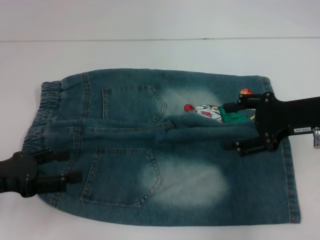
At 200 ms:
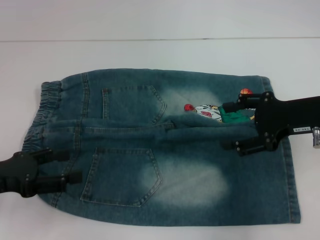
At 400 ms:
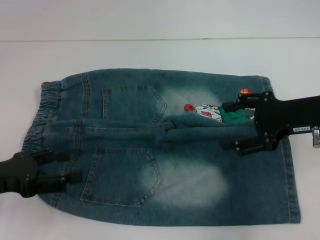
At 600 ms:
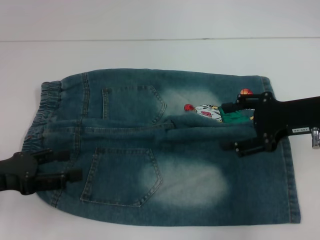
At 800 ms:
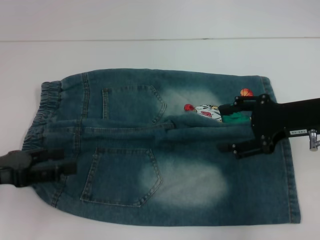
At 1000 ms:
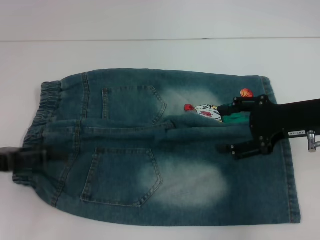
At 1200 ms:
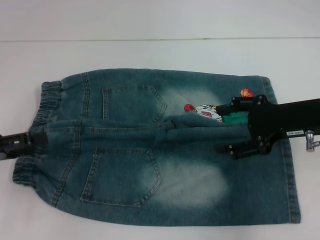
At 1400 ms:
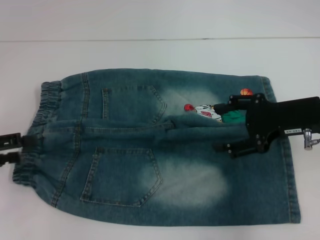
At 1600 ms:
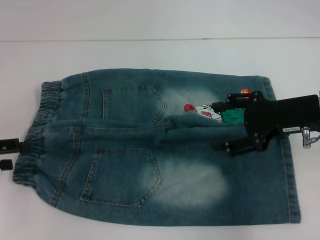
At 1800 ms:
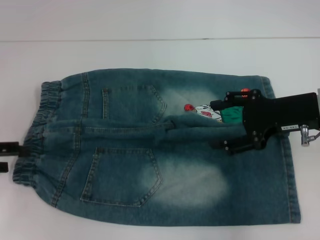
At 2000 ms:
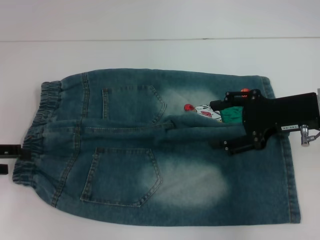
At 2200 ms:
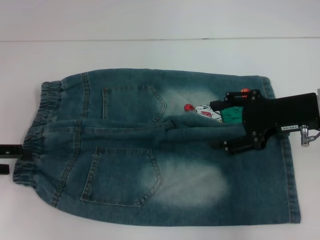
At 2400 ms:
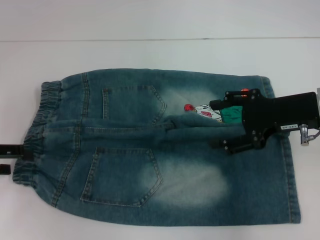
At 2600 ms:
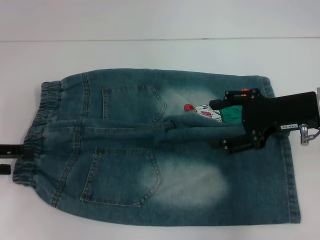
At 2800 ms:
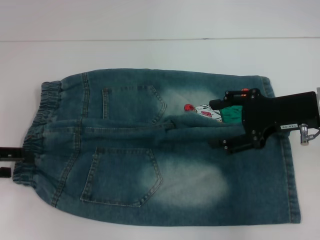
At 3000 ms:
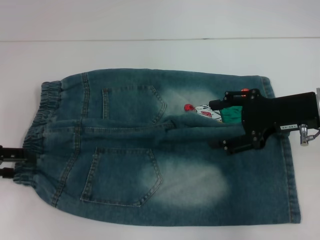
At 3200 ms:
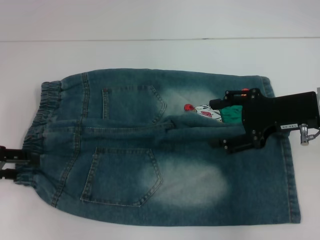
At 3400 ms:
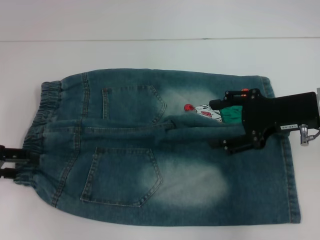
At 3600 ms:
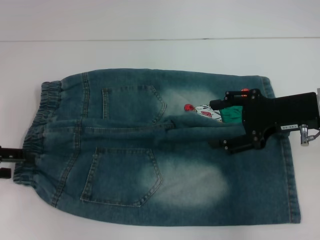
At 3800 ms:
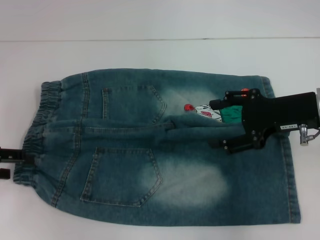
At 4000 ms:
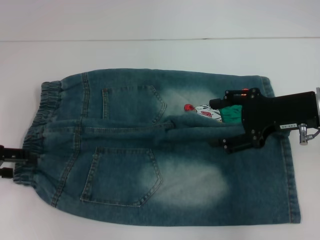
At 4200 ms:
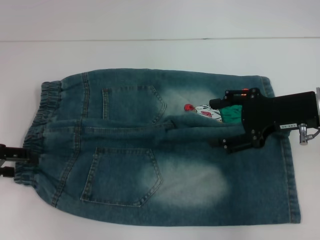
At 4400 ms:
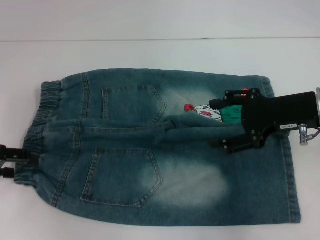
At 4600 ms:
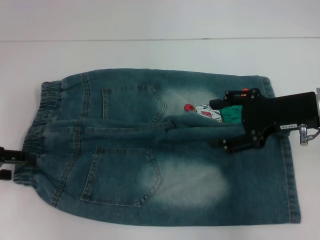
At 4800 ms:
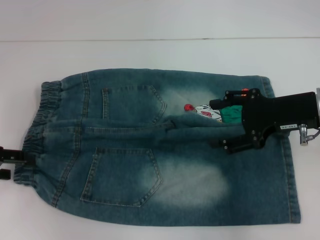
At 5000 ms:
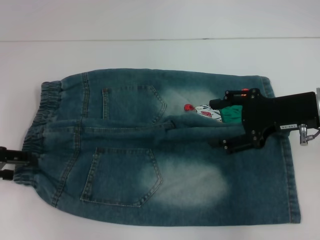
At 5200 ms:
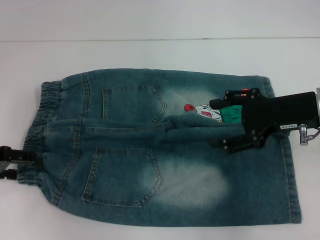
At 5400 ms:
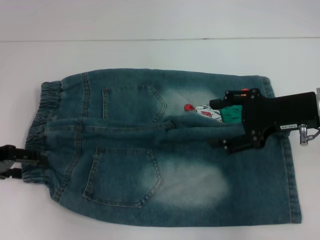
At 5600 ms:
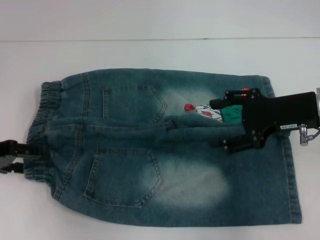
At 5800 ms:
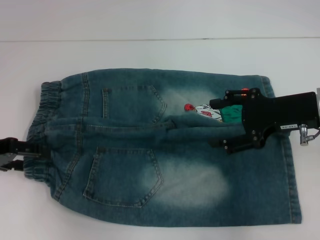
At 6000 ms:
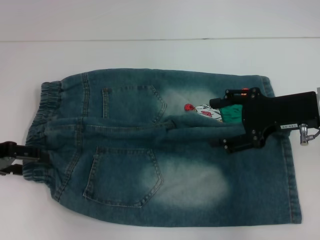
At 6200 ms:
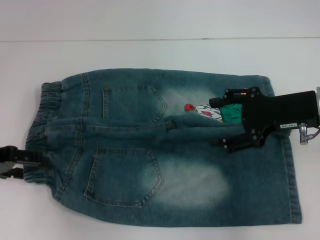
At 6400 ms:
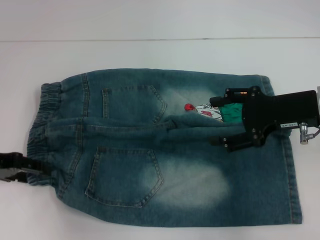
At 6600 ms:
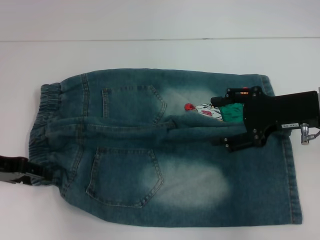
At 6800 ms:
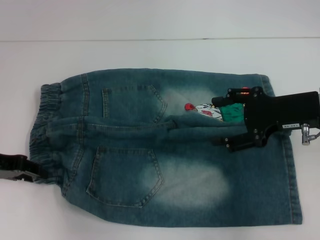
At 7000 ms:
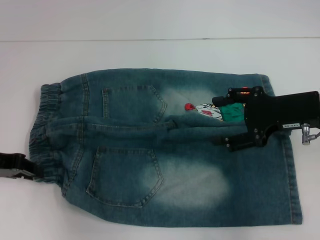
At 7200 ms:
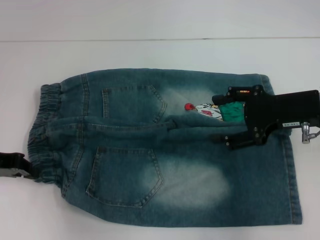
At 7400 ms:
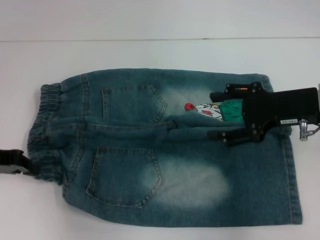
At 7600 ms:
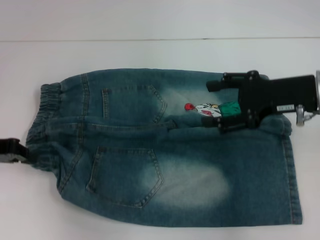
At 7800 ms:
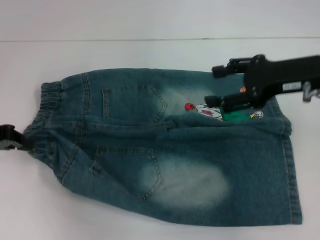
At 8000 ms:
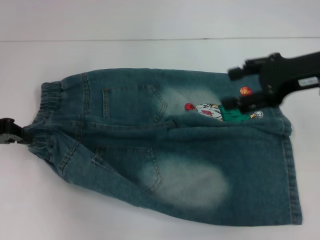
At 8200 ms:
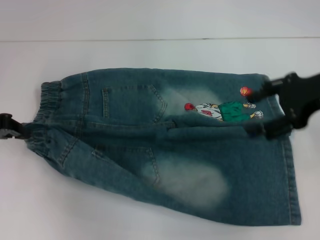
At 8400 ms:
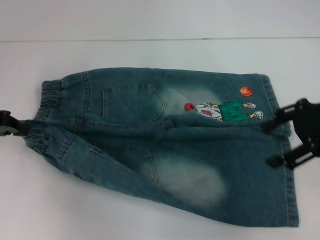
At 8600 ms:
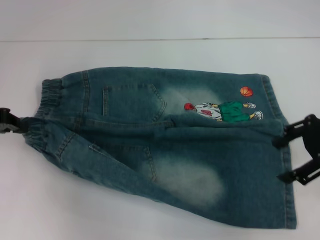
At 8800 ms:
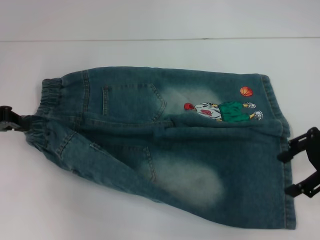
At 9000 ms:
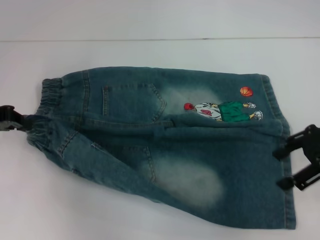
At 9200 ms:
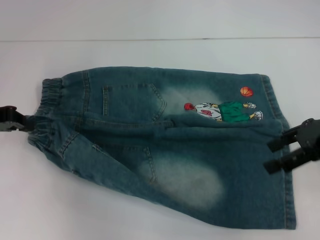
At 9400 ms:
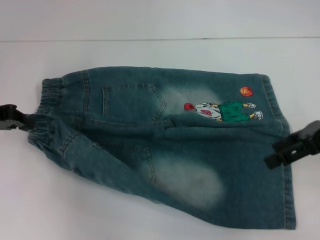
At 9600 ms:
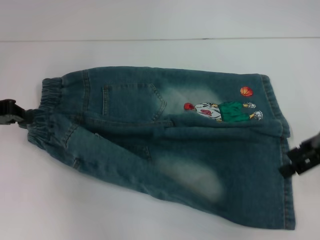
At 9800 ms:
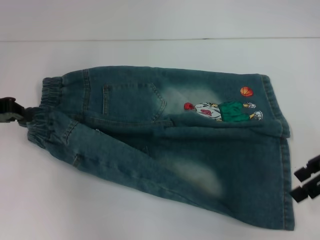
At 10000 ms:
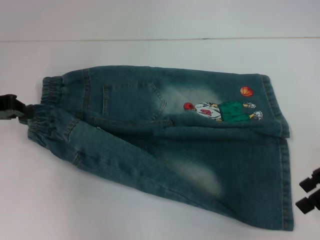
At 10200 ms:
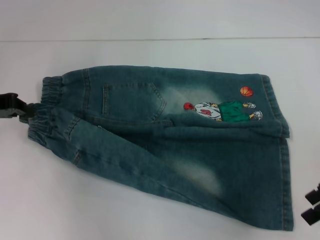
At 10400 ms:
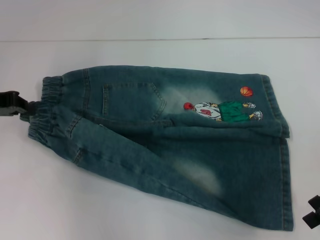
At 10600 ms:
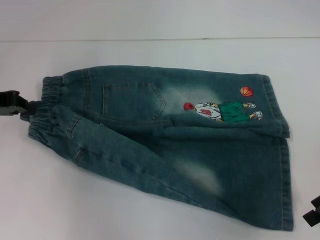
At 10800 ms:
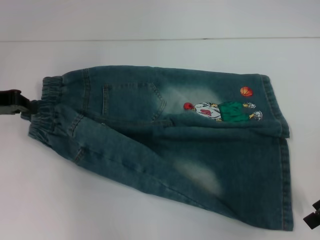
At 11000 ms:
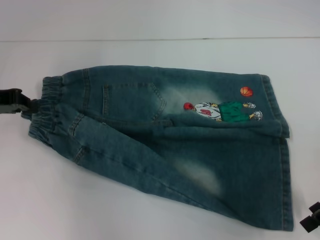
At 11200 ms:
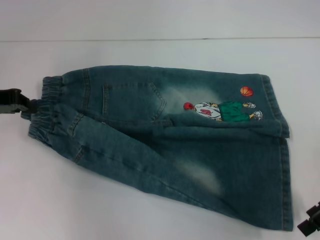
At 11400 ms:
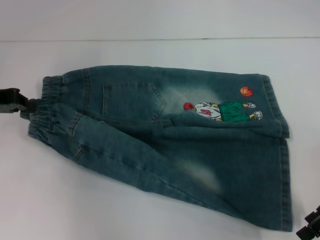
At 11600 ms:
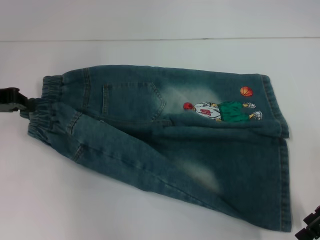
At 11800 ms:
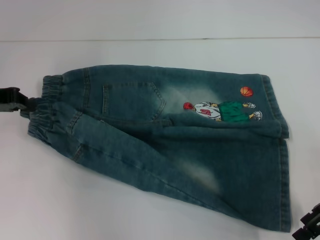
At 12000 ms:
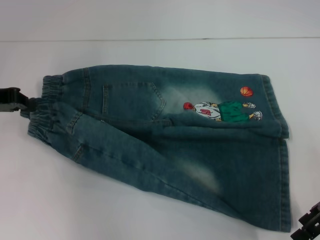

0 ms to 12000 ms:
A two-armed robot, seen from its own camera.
Step, 0 ms to 7400 ms: Hold the lower left waistband with your left hand.
0 ms to 1600 ms: The left gripper is displaced to the left by about 5 cm.
1600 ms to 3000 ms: The grippers make only small movements.
3000 ms to 4400 ms: Both grippers stay put.
4400 ms to 6000 ms: There are only small adjustments of the grippers.
6000 ms to 7600 ms: The left gripper closes.
7600 ms to 9000 ms: The right gripper travels to the right by some 5 cm.
9000 ms to 10400 ms: The right gripper ends up about 5 cm from where it was.
10400 ms to 12000 ms: There are only small adjustments of the grippers.

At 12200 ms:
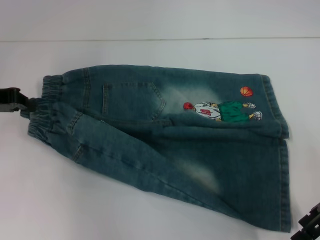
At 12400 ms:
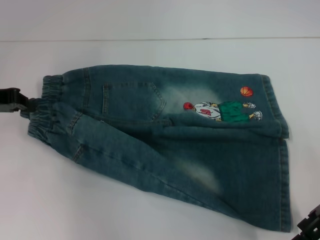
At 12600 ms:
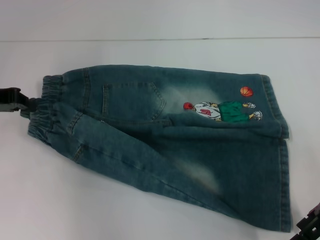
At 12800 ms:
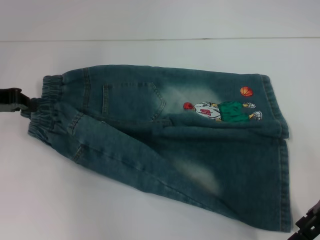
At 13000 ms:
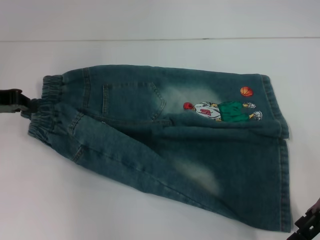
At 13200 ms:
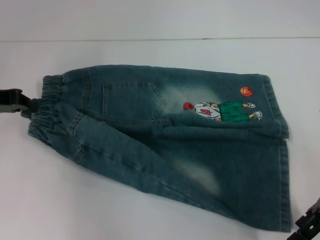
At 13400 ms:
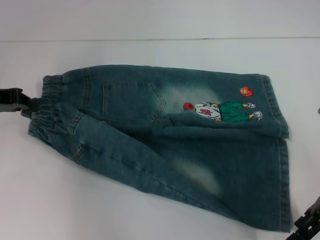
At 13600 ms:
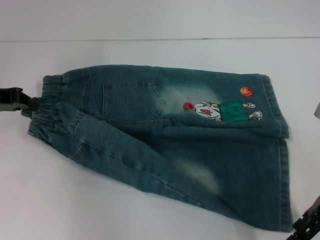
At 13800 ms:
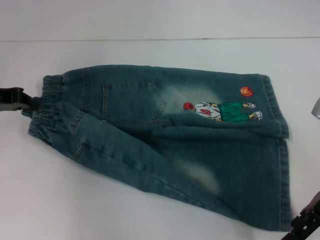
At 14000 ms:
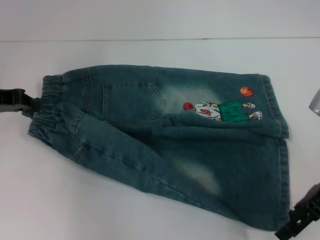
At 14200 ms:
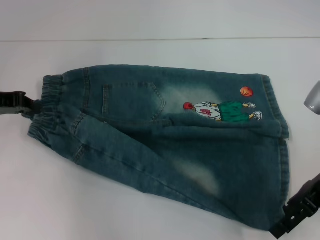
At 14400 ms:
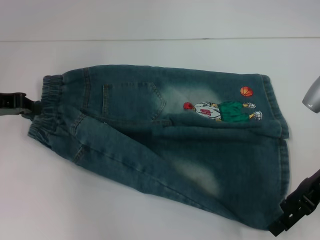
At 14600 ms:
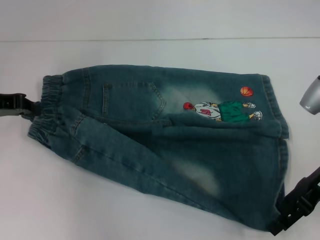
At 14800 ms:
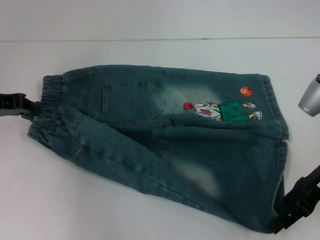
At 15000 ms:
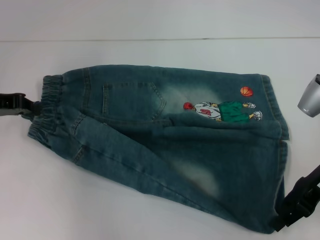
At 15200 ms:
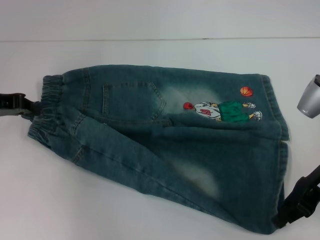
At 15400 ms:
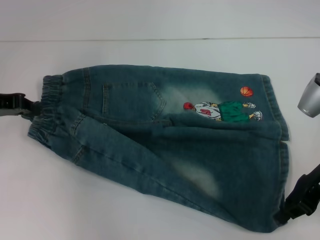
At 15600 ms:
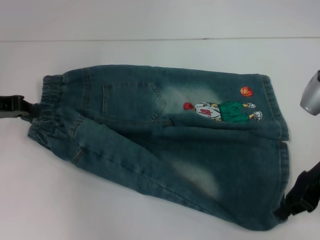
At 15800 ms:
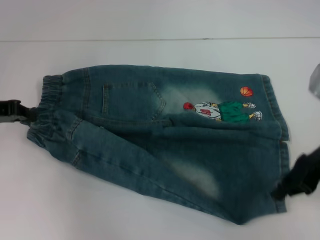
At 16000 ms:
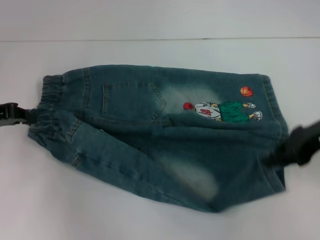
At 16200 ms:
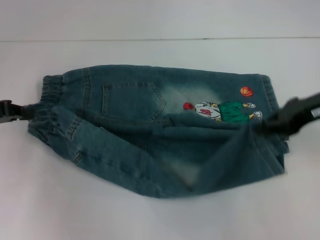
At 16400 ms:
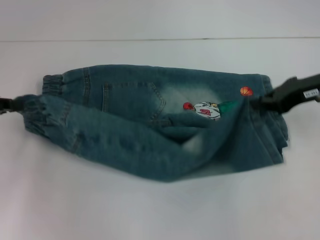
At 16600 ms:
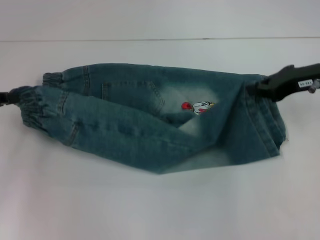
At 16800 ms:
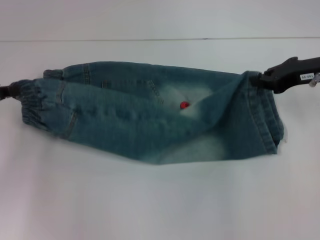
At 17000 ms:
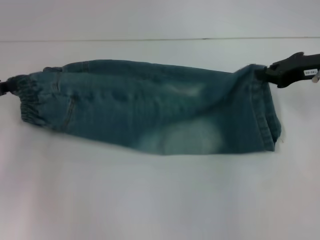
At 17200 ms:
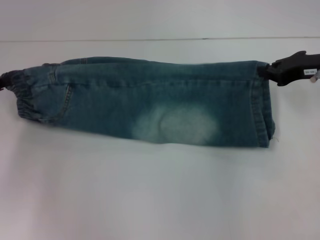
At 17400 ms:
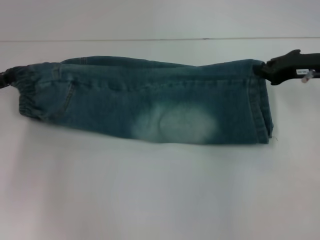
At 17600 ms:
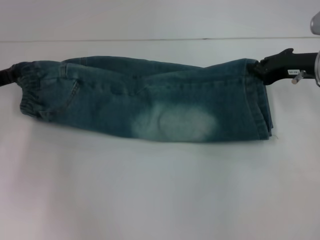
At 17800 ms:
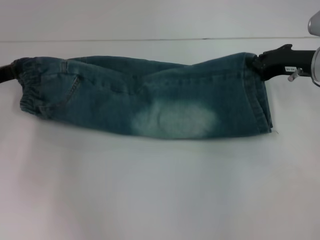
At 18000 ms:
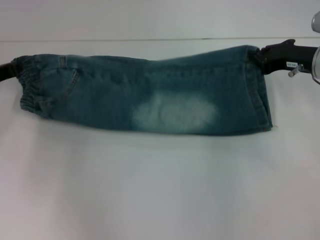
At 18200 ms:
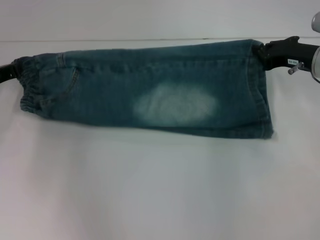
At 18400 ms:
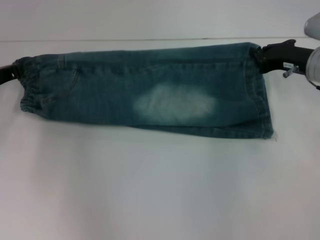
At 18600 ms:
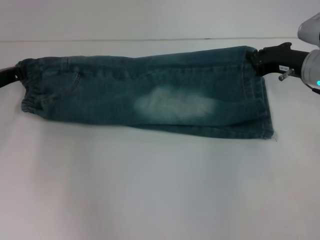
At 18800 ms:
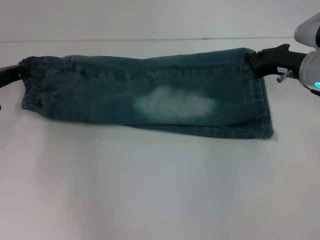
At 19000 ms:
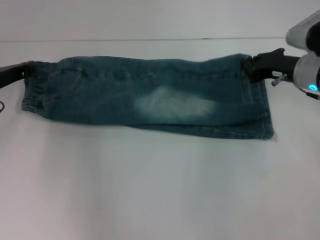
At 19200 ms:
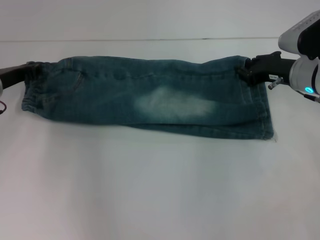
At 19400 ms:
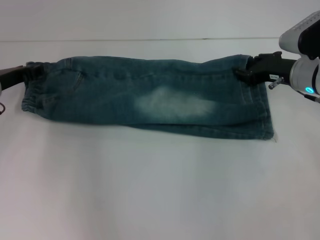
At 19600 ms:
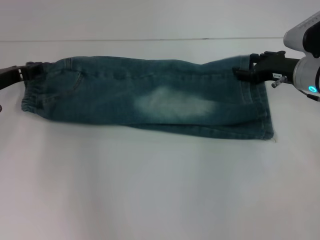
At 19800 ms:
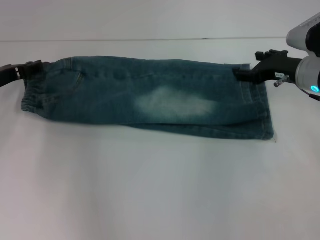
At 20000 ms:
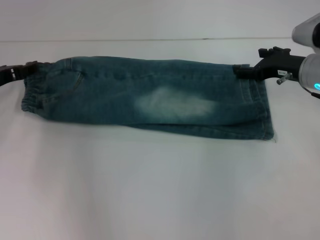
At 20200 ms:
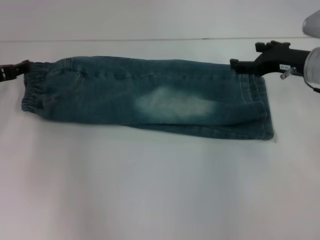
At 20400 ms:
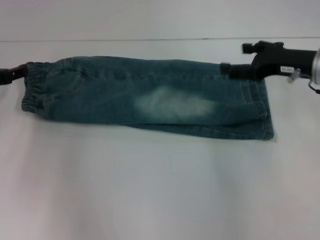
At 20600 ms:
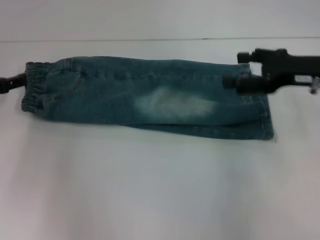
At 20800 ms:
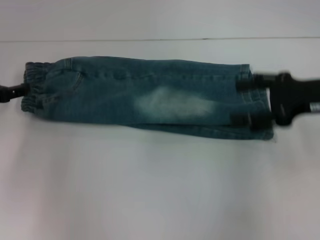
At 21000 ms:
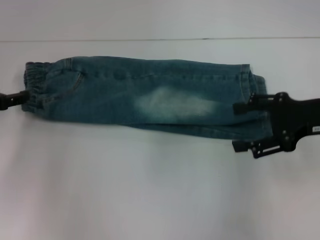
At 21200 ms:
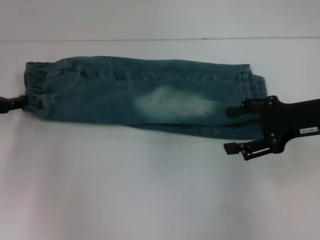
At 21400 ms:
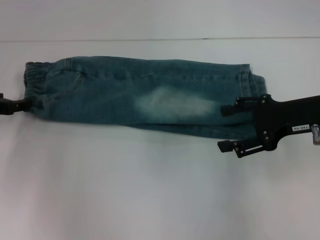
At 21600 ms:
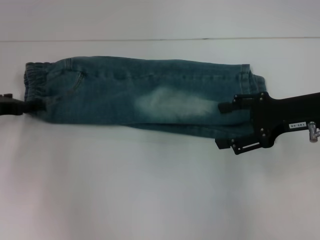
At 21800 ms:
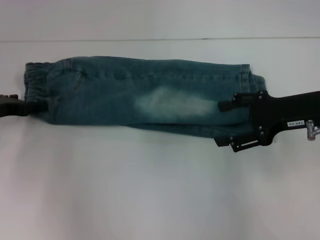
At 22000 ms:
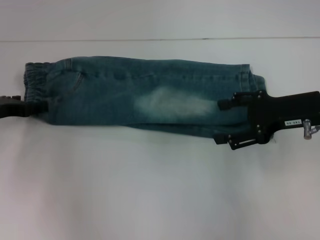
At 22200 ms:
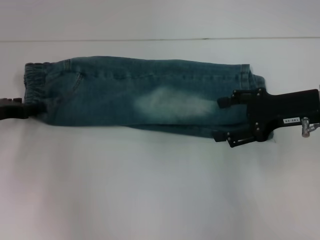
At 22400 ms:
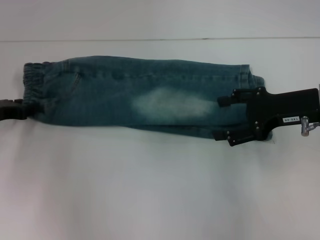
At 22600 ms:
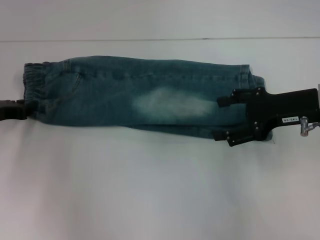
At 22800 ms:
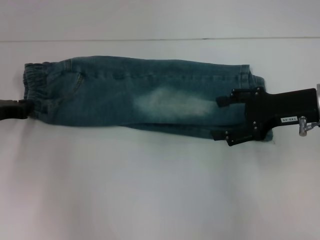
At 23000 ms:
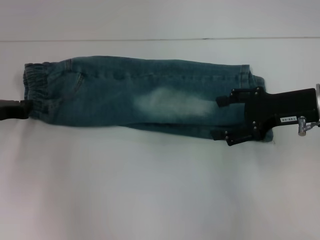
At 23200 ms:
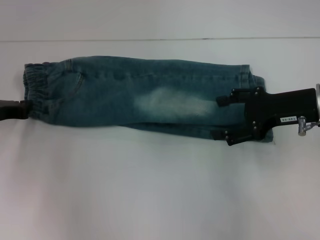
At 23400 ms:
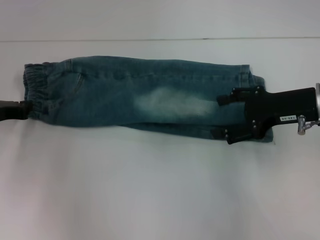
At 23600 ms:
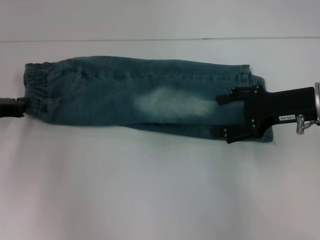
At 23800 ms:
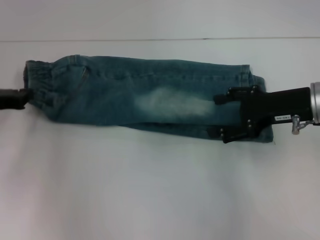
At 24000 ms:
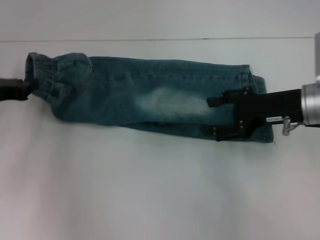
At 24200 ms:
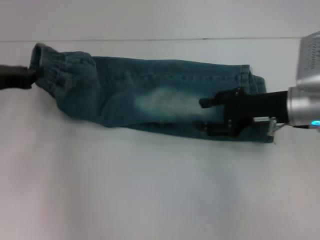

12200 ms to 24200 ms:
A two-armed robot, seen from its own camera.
Step, 12200 ms to 15600 ms: Grab the lower right pant leg with your right hand.
Step, 15800 ms to 19800 ms: Fold upward with your right hand.
Step, 20200 ms to 23000 ms: Hold the waistband with your left hand.
12200 ms to 13800 ms: The grippers move only a little.
13800 ms to 15200 ms: The right gripper closes.
15200 ms to 16600 ms: The left gripper shifts by about 5 cm; the right gripper travels forward by approximately 5 cm, and closes its fingers.
16600 ms to 18200 ms: The left gripper heads forward, covering roughly 5 cm.
18200 ms to 19800 ms: The right gripper opens up; the left gripper opens its fingers.
19800 ms to 21200 ms: The right gripper moves backward, about 10 cm, and opens its fingers; the left gripper shifts by some 5 cm.
21200 ms to 22600 ms: The left gripper closes.
22600 ms to 24200 ms: The left gripper shifts about 5 cm upward, and closes up.
